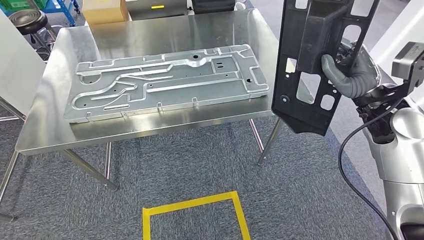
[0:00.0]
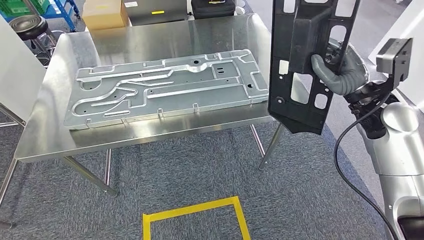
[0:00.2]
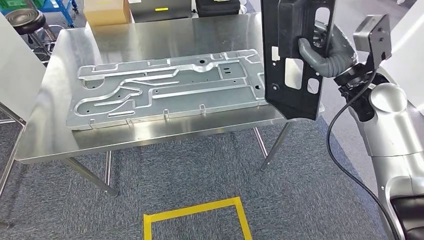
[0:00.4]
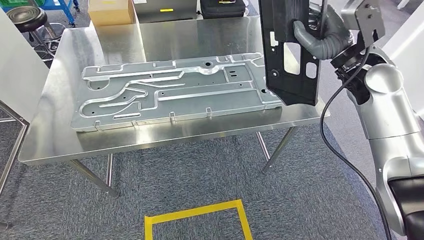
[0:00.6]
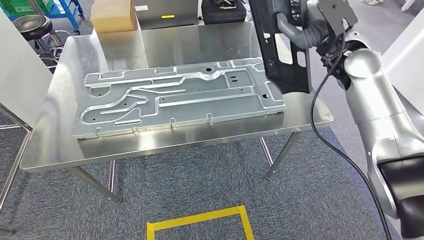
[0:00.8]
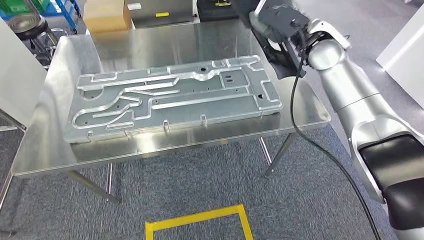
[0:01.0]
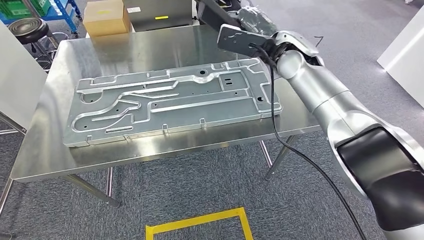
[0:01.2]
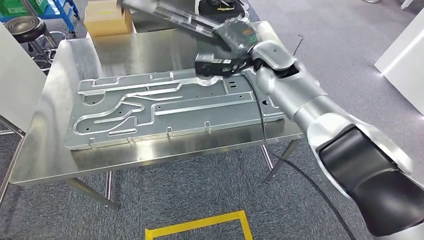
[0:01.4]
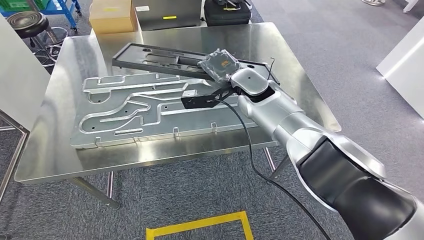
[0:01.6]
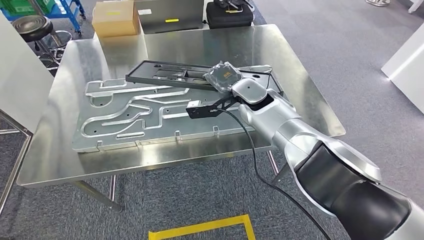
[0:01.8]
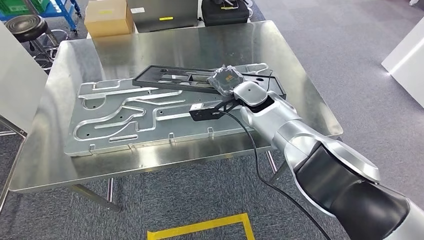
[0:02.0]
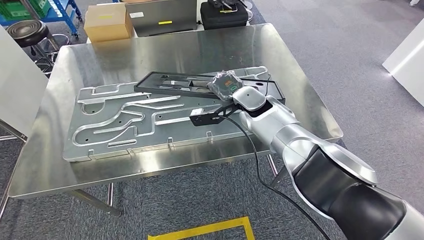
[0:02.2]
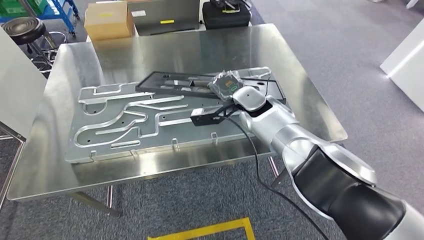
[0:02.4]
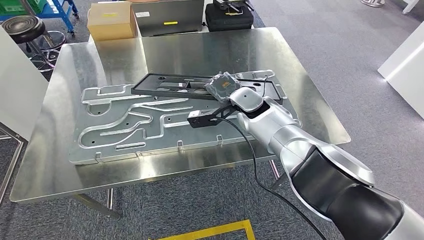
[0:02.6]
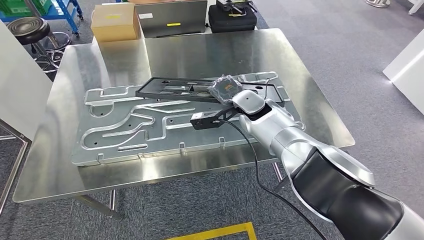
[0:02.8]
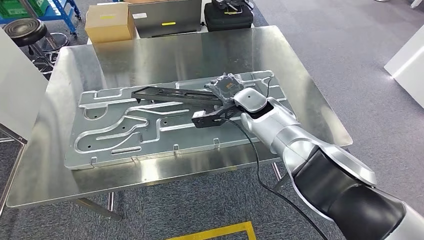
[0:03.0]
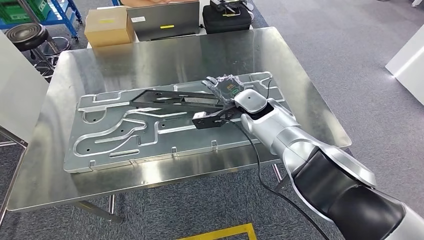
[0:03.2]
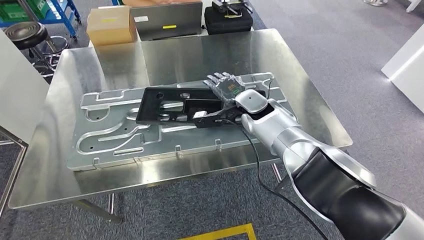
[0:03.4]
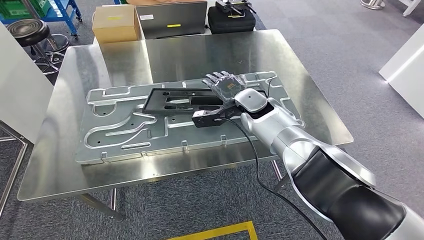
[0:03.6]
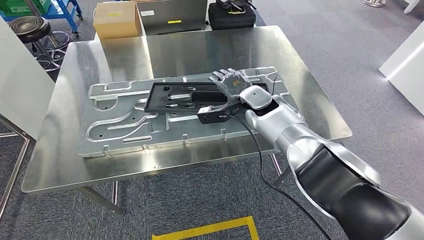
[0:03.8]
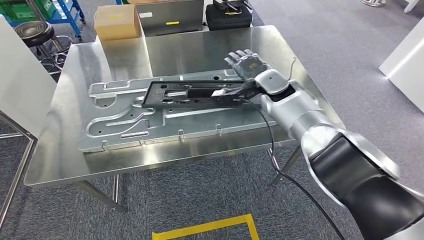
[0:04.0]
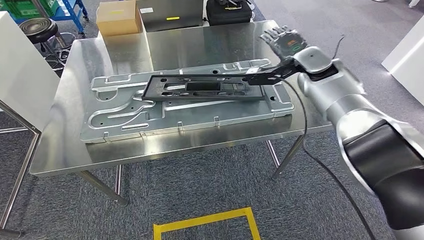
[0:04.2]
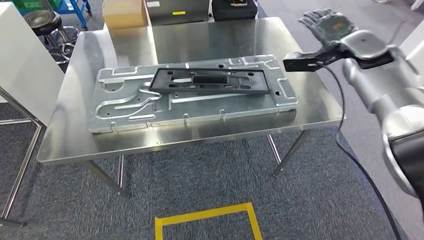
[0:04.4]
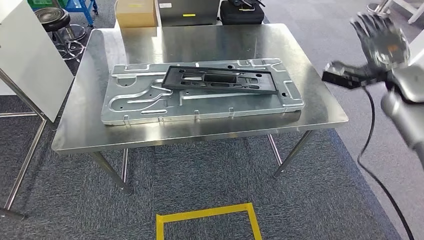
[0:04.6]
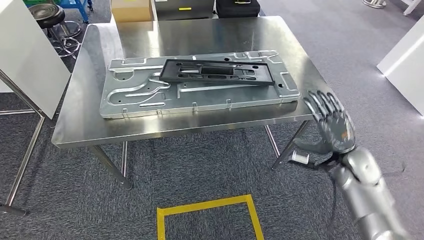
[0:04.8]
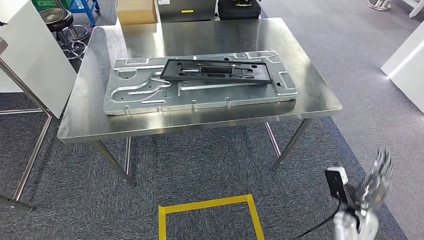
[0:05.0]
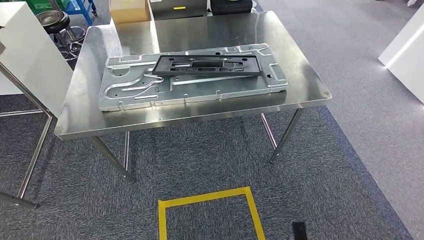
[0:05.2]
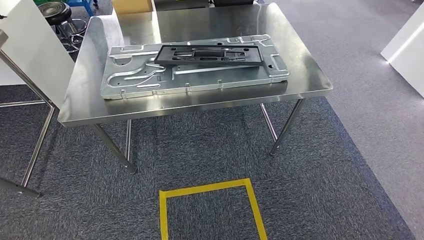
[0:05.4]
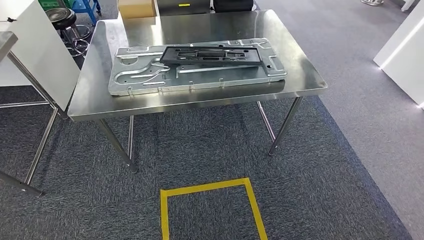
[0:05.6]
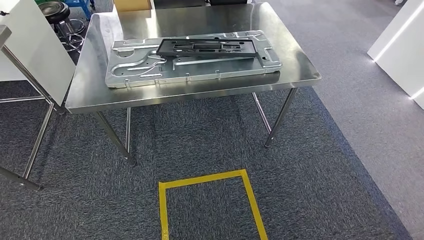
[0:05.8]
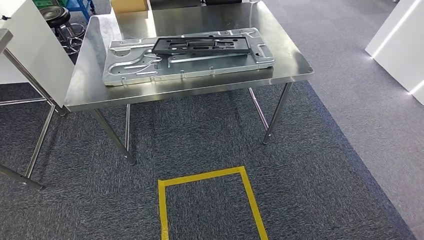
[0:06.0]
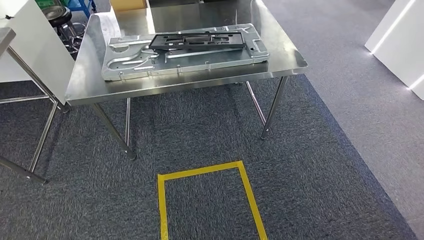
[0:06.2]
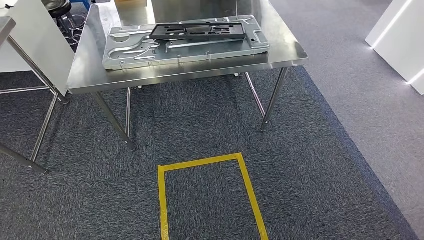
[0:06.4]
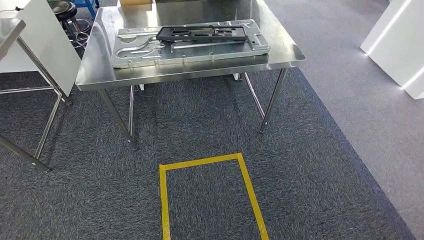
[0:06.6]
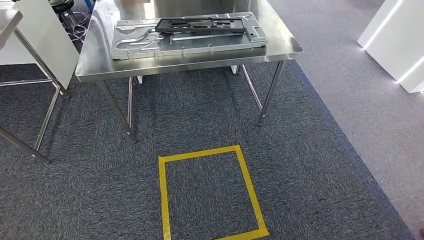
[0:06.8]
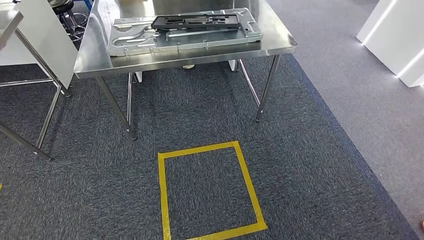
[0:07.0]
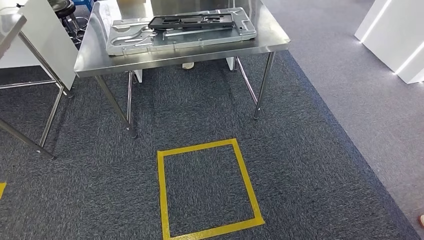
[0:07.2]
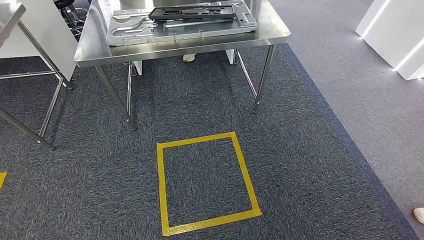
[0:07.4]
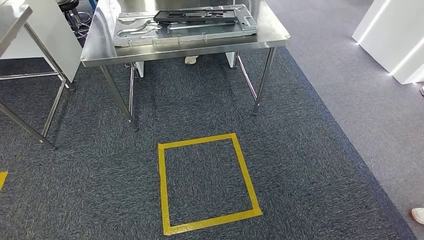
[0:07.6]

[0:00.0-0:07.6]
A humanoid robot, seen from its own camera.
Step, 0:00.6 to 0:03.6: Insert the large material into the corresponding slot on the workbench.
Step, 0:04.8 to 0:07.6: Move to the initial position of the shelf.
